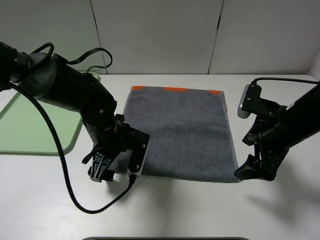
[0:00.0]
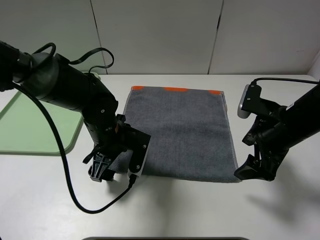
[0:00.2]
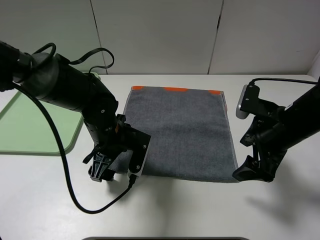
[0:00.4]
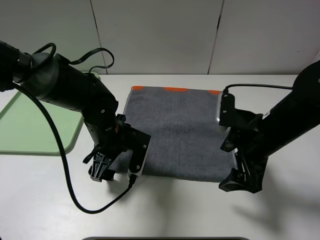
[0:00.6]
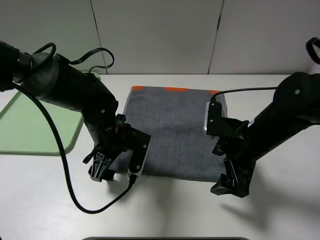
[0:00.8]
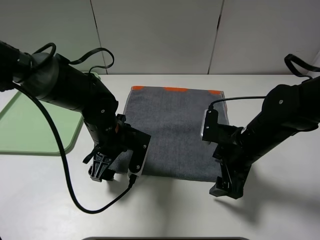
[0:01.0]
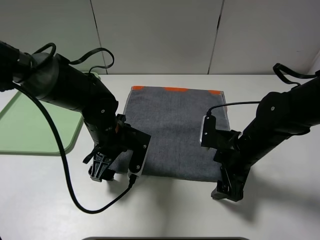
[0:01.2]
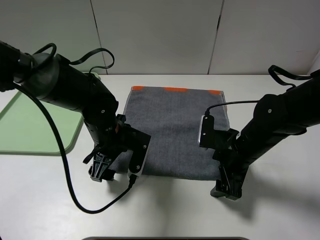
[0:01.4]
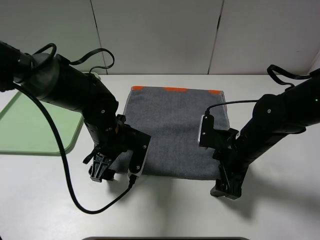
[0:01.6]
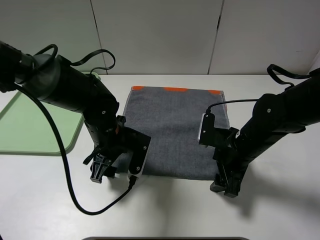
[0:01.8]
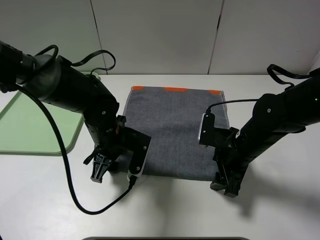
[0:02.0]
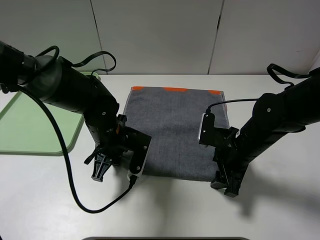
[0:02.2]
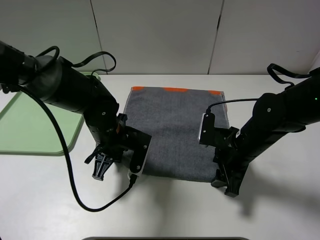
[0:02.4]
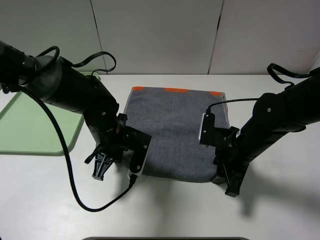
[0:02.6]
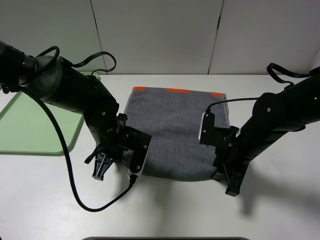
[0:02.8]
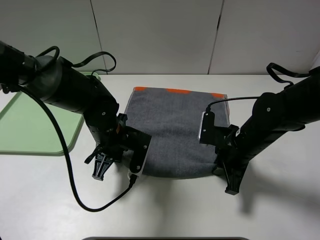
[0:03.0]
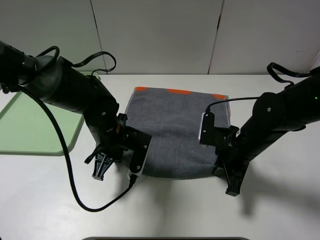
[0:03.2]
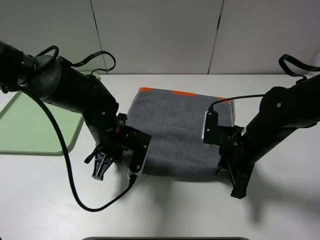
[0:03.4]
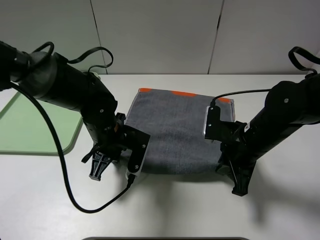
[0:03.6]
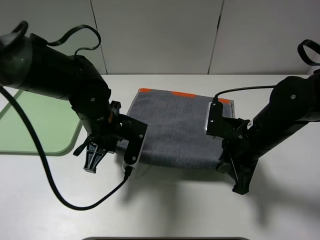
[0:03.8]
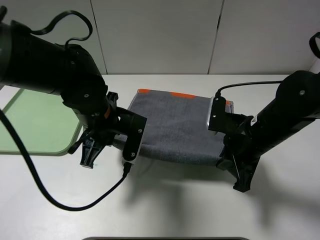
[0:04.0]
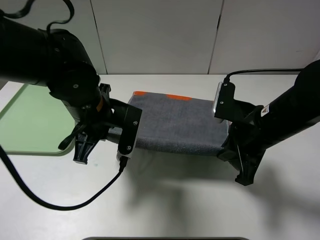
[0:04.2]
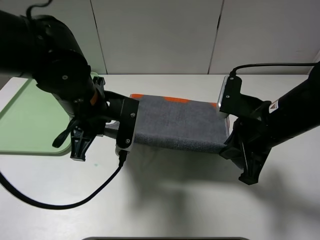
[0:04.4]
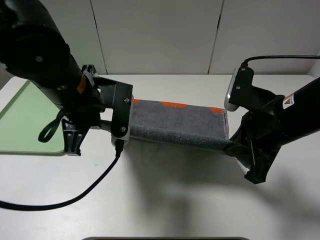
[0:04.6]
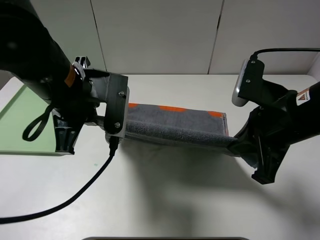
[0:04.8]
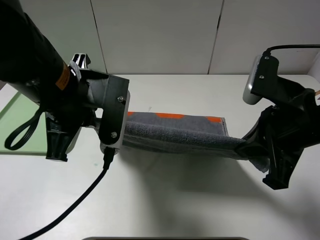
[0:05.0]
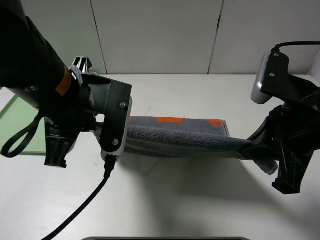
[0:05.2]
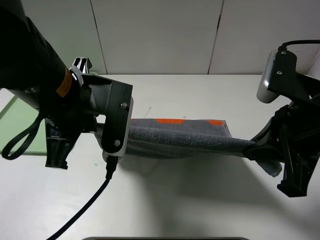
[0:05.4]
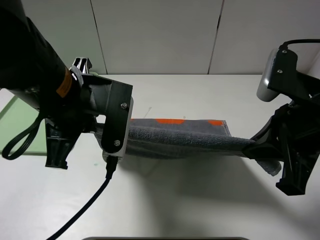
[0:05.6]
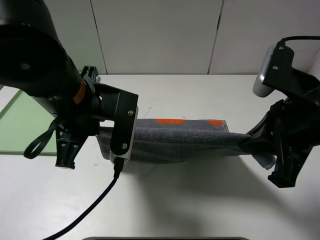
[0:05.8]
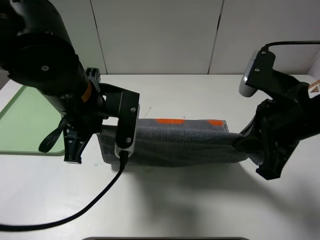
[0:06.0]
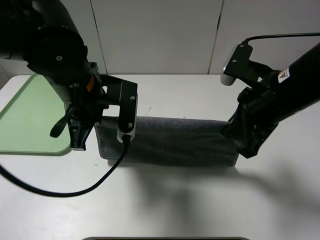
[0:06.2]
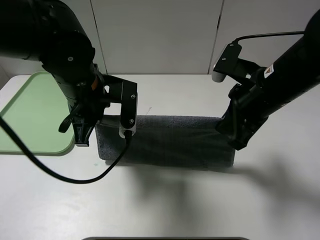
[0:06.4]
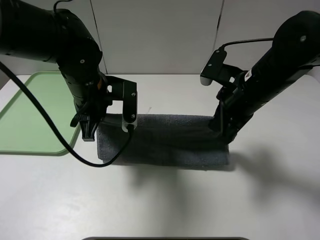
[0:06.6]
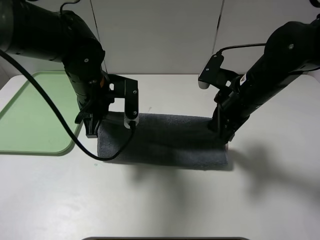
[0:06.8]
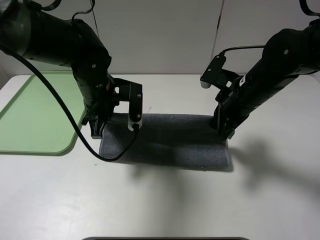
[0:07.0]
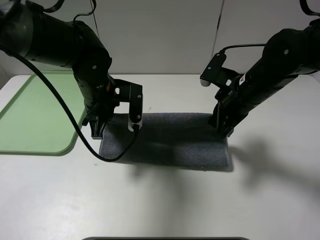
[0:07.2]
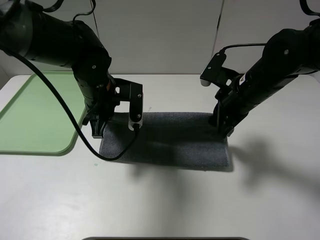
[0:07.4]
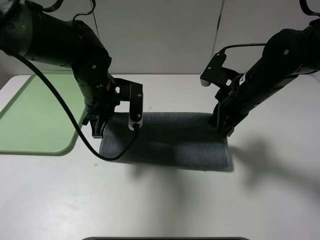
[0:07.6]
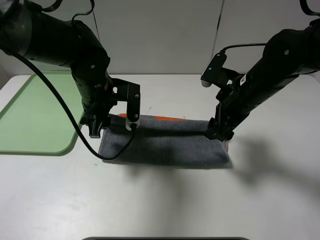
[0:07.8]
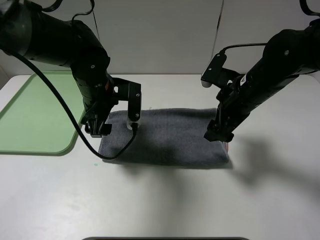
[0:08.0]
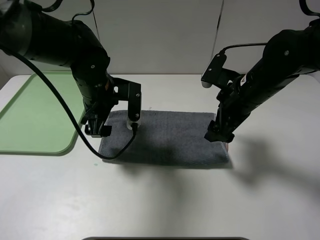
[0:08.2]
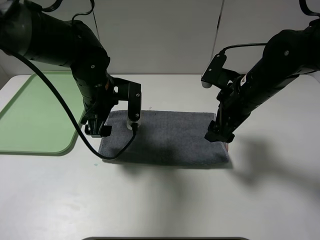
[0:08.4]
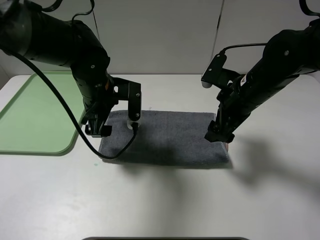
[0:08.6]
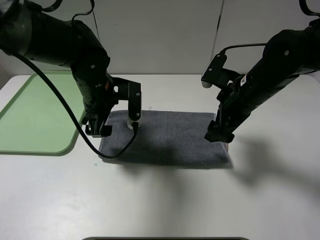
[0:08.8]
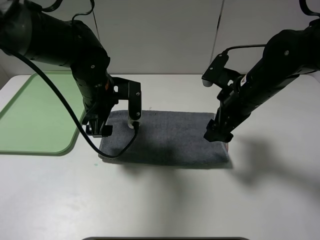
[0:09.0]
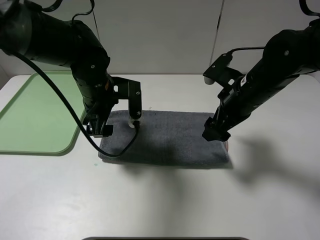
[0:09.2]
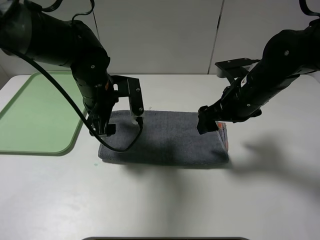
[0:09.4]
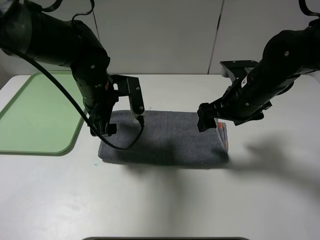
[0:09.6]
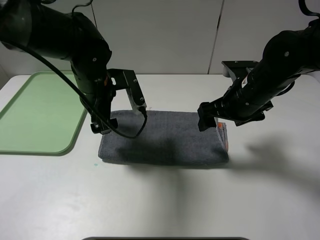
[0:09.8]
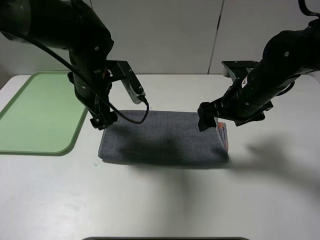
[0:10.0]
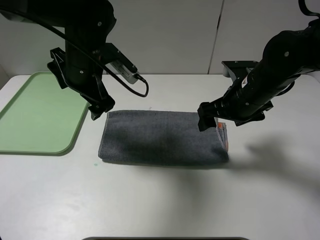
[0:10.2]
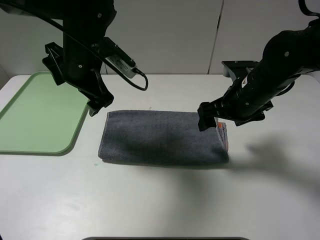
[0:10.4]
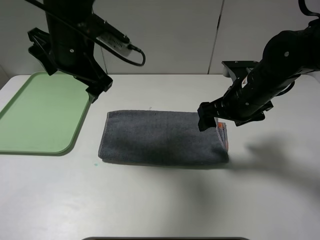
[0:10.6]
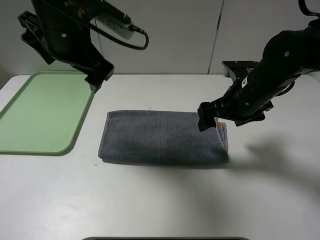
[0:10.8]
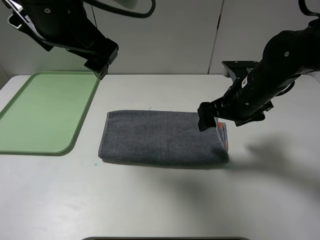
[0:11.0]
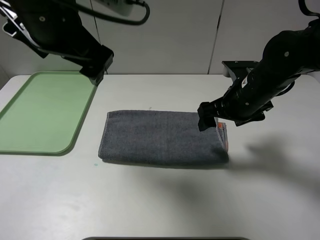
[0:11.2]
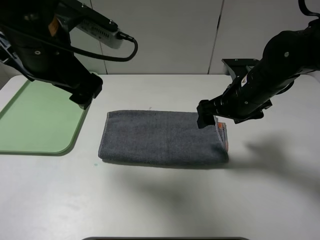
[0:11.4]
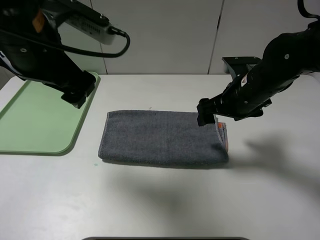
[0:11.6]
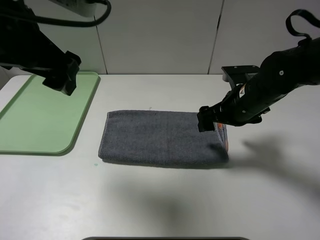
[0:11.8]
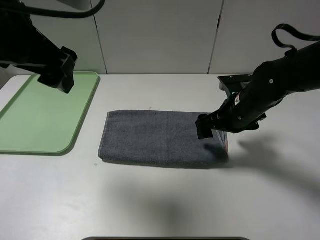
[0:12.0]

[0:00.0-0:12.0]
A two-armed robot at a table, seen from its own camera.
Step, 0:00.0 to 0:08.0: Fold the grey towel upwards.
0:00.0 to 0:01.6: The right gripper travels downward and to the left by roughly 10 cm.
0:01.6 to 0:03.0: The left gripper closes, while the right gripper closes its fingers.
0:03.0 to 0:04.4: Both grippers move upward, roughly 10 cm.
0:06.0 to 0:07.6: The grippers both shift forward and downward by about 10 cm.
0:07.6 to 0:09.0: The left gripper opens, while the right gripper opens.
0:09.0 to 0:10.4: The left gripper shifts roughly 5 cm upward.
0:10.4 to 0:12.0: The left gripper is displaced backward and upward by some 15 cm.

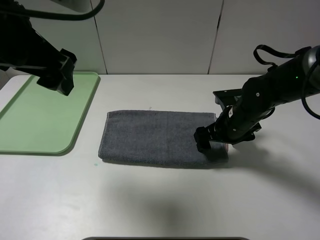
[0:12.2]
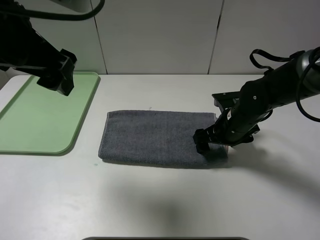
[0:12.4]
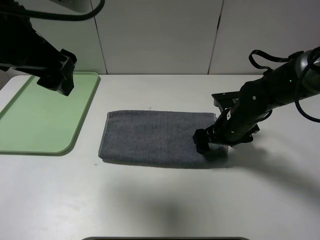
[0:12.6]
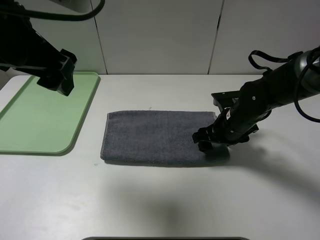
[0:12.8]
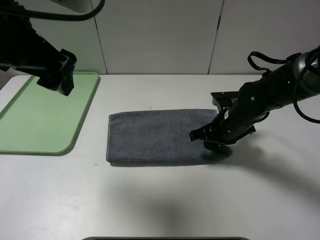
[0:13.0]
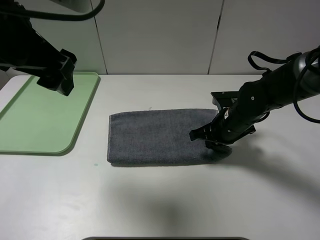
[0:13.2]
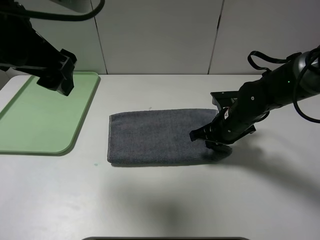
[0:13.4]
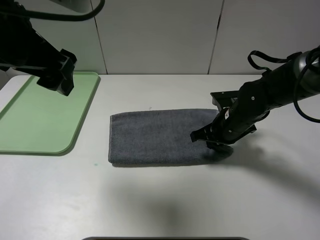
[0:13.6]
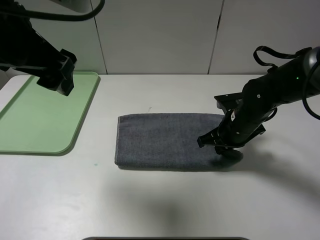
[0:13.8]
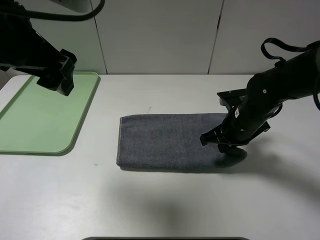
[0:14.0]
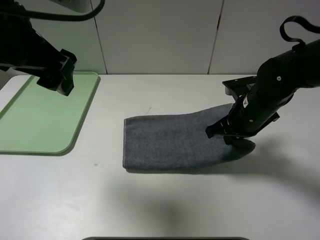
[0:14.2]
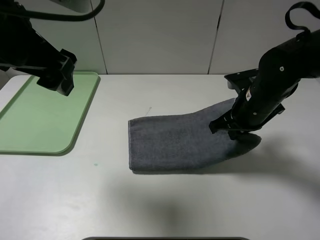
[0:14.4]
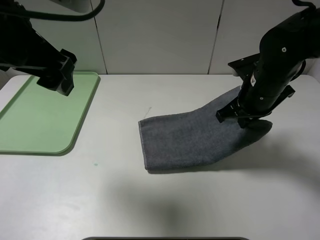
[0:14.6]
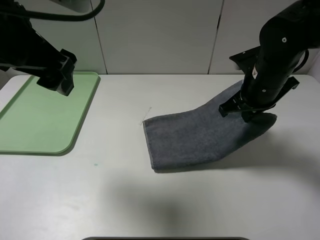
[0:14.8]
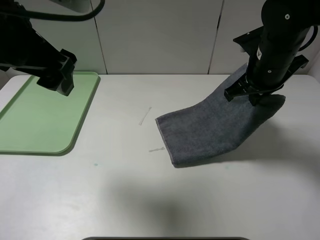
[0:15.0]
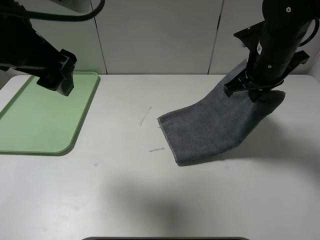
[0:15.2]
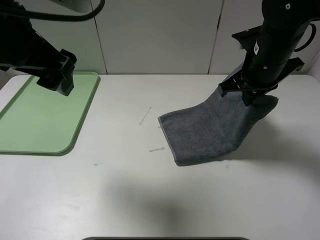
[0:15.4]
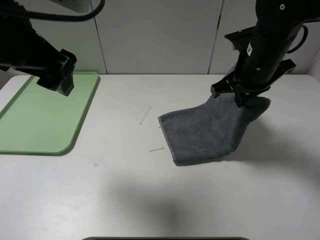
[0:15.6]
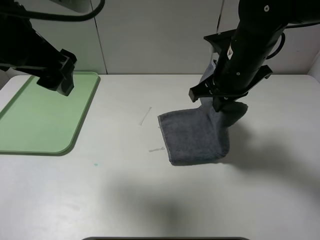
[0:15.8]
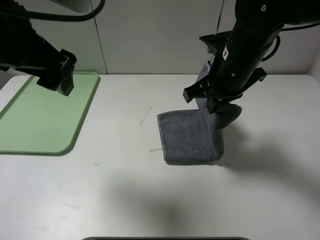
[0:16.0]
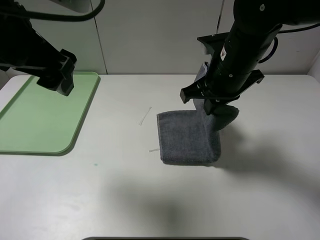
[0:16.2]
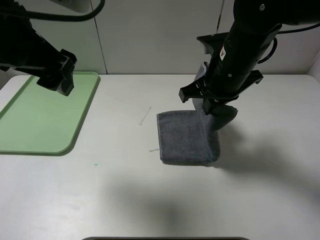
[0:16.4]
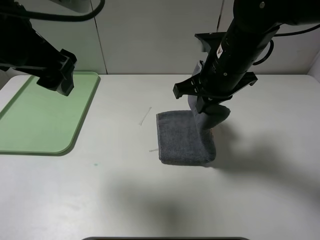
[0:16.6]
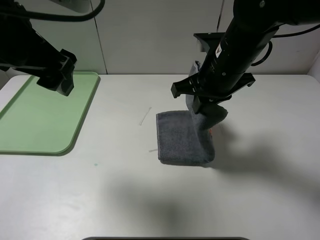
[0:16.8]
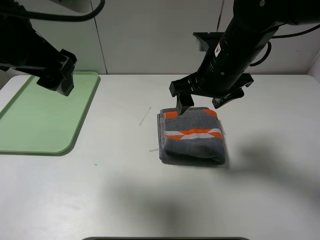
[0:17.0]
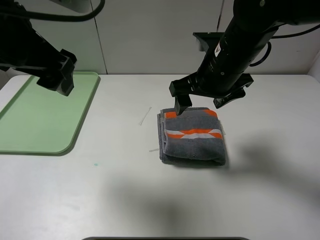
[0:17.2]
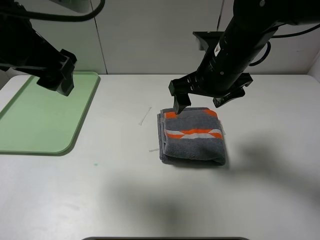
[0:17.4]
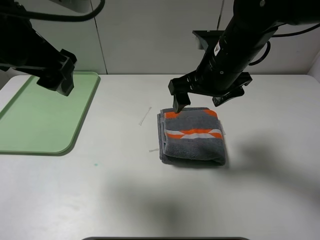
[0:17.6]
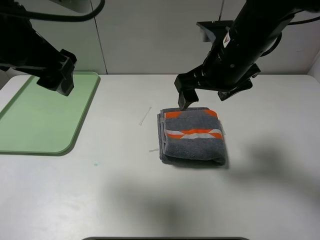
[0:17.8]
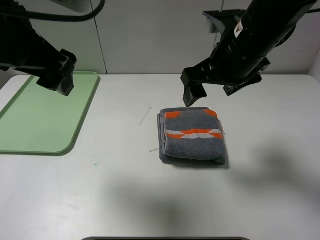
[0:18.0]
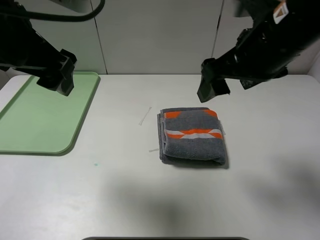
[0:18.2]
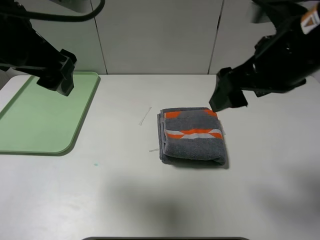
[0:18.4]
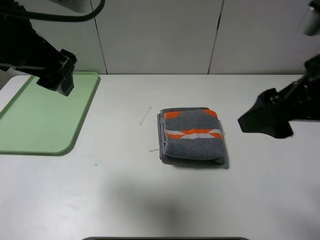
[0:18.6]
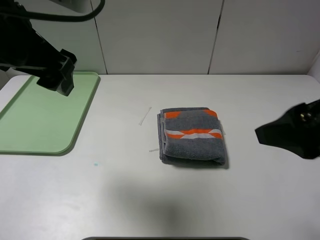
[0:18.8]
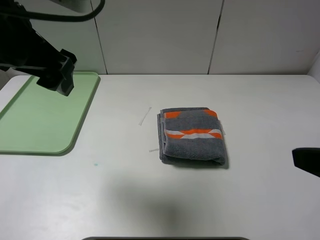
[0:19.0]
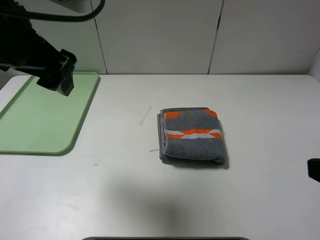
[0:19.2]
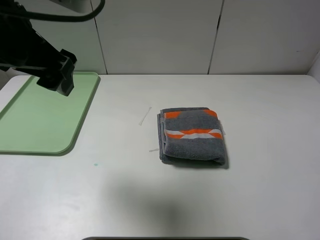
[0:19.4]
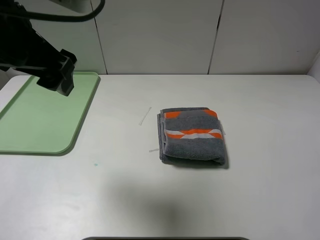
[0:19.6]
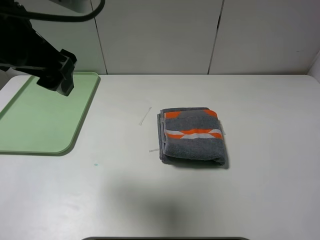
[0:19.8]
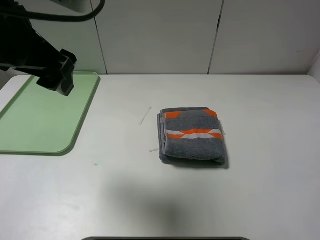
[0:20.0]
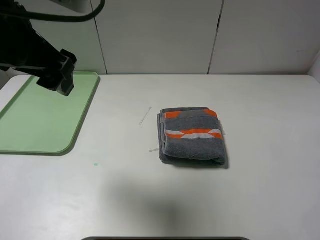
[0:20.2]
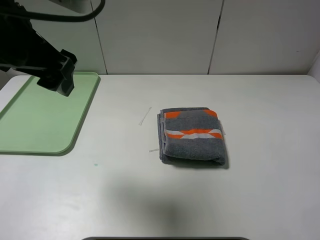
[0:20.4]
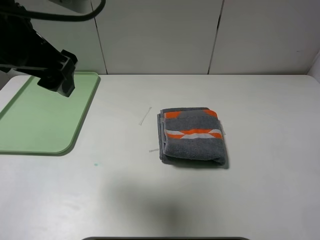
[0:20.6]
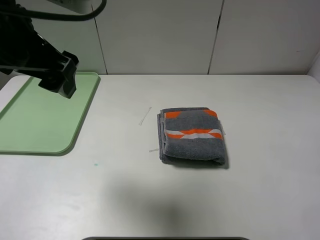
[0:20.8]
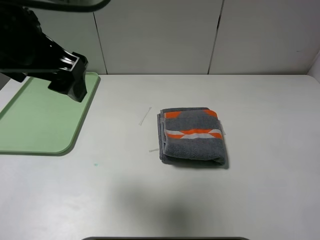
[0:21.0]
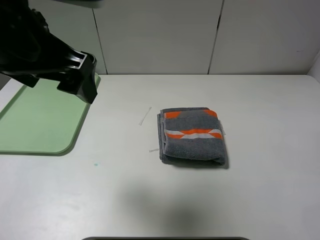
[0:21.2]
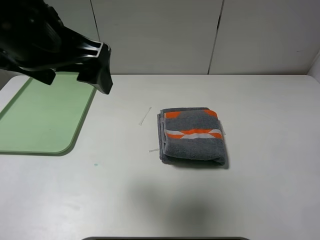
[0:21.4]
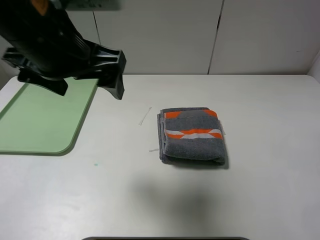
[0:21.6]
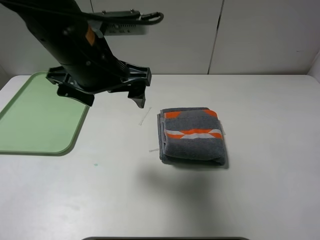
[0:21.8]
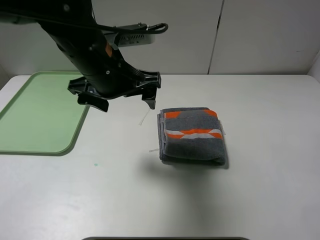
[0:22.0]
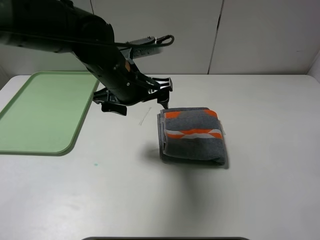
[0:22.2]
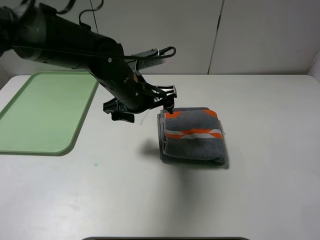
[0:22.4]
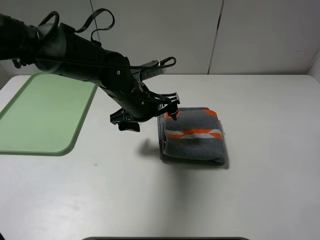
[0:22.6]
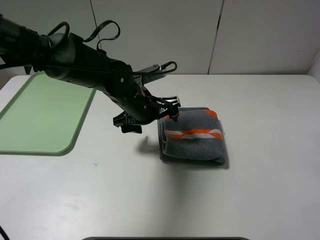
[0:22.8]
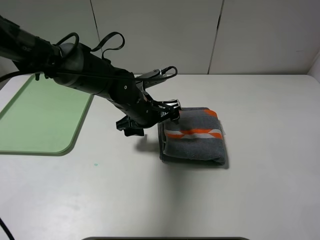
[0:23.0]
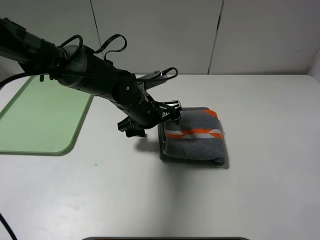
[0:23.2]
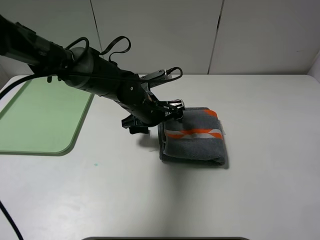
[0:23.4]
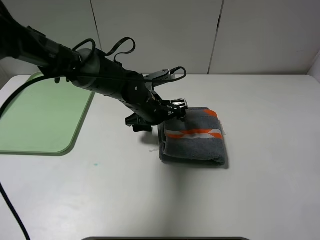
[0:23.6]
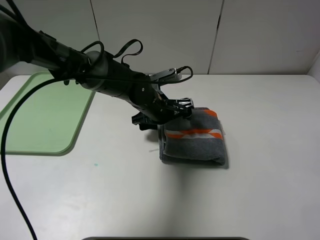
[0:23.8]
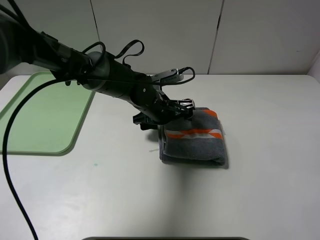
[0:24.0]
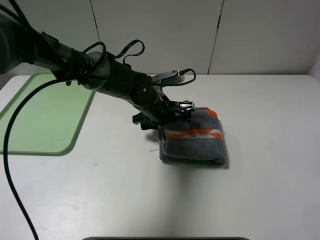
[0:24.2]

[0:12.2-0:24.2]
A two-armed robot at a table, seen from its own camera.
Step, 0:12.2 to 0:17.0: Fold the grey towel from right to left with right gripper.
0:12.2 to 0:13.8: The right gripper closes up.
0:13.8 to 0:15.2: The right gripper moves upward, about 15 cm.
0:15.2 to 0:16.6: The right gripper moves to the left, approximately 10 cm.
0:16.6 to 0:18.2: The right gripper is displaced upward and backward by approximately 10 cm, and opens.
0:18.2 to 0:19.8: The right gripper moves backward and to the right, about 25 cm.
0:21.2 to 0:22.6: The left gripper heads downward, forward and to the right, covering about 25 cm.
0:22.6 to 0:24.2: The left gripper shifts by about 5 cm.
